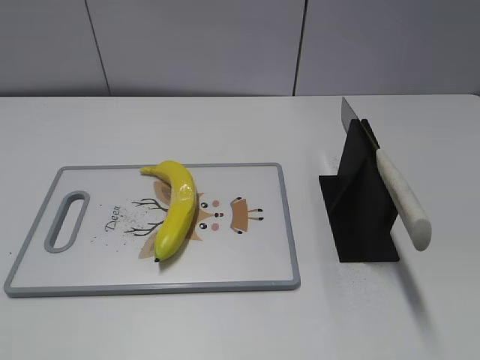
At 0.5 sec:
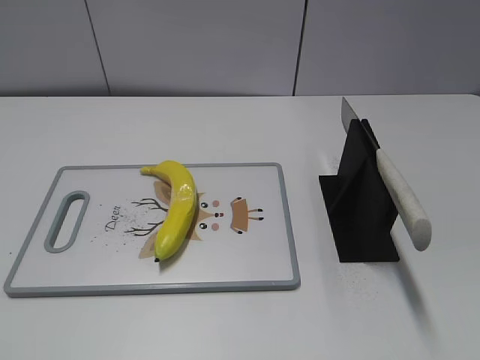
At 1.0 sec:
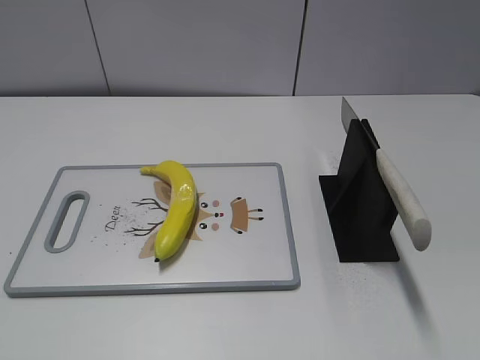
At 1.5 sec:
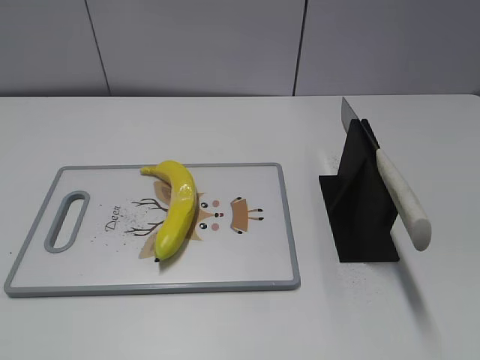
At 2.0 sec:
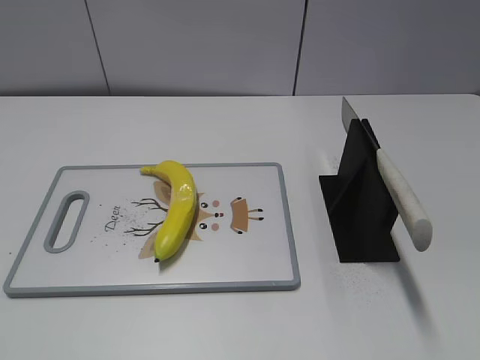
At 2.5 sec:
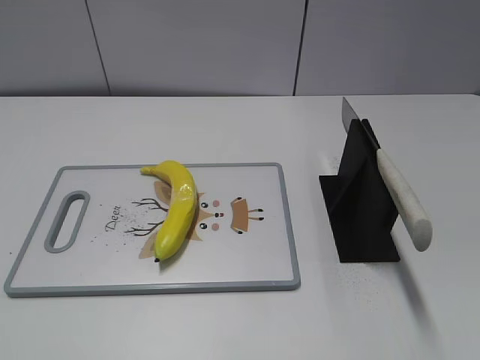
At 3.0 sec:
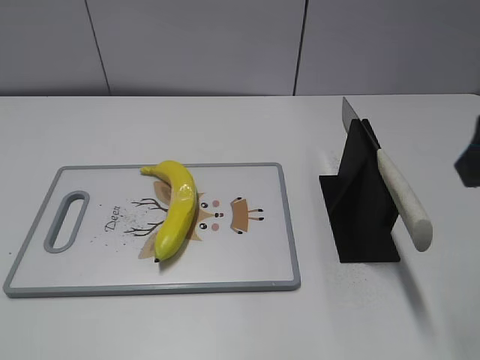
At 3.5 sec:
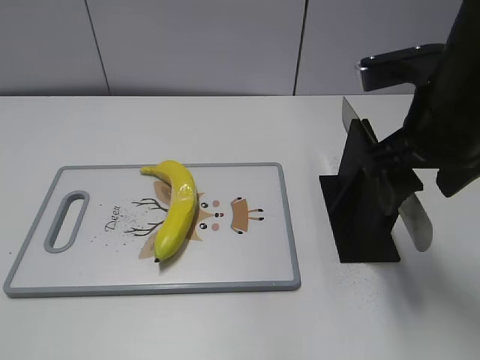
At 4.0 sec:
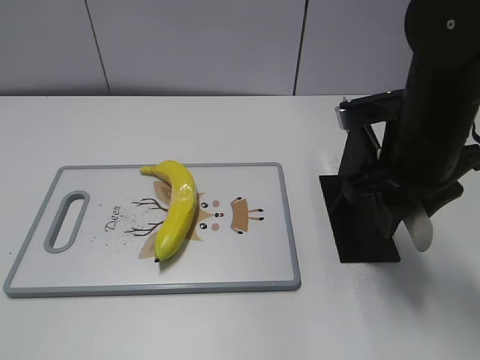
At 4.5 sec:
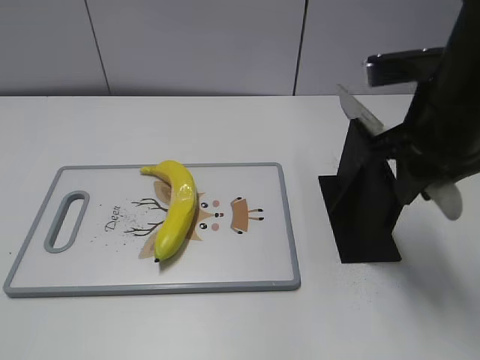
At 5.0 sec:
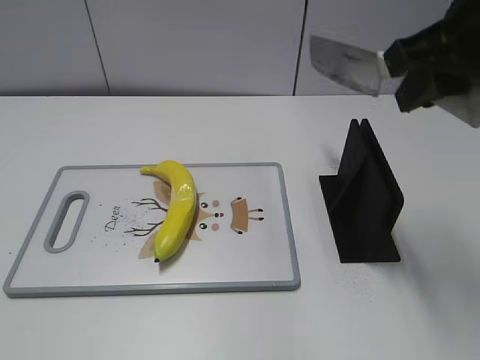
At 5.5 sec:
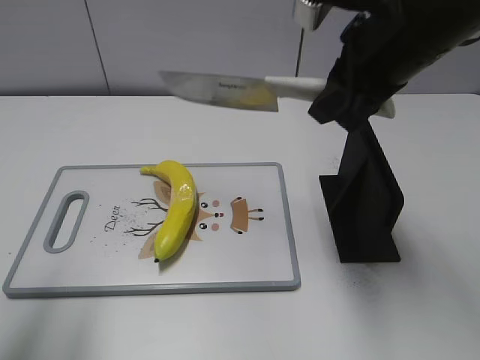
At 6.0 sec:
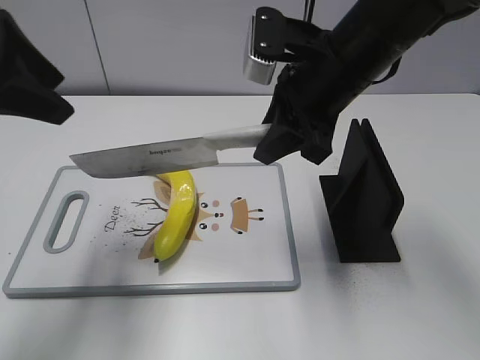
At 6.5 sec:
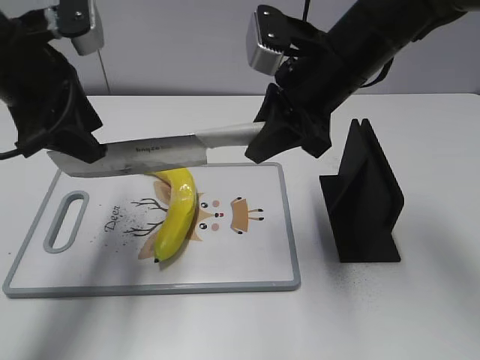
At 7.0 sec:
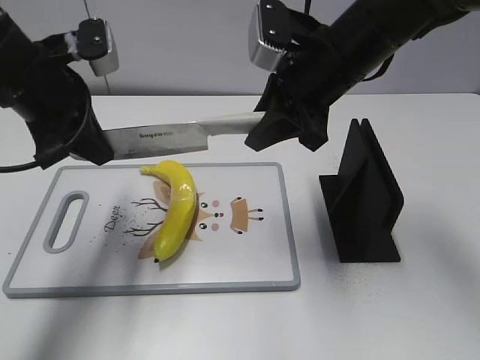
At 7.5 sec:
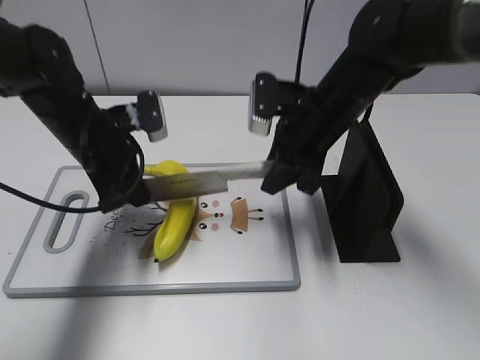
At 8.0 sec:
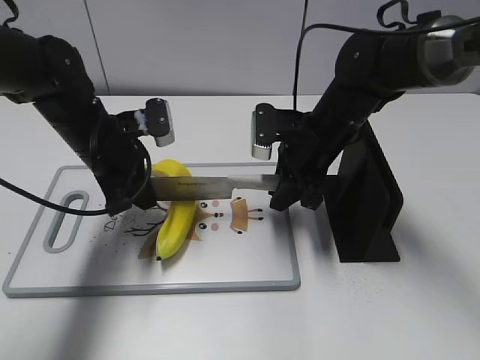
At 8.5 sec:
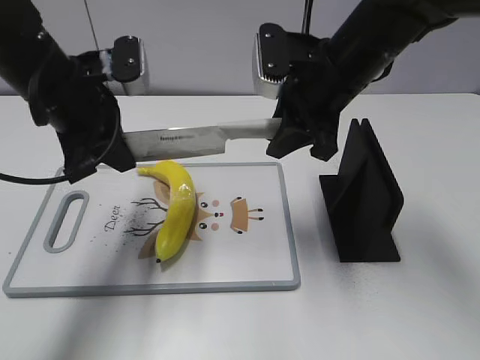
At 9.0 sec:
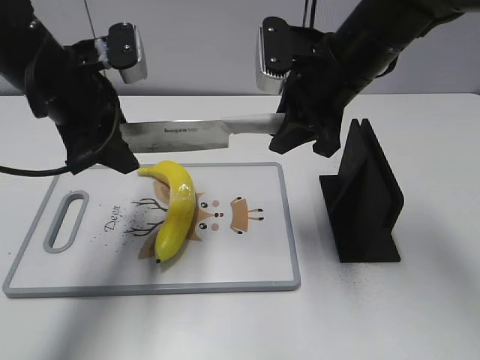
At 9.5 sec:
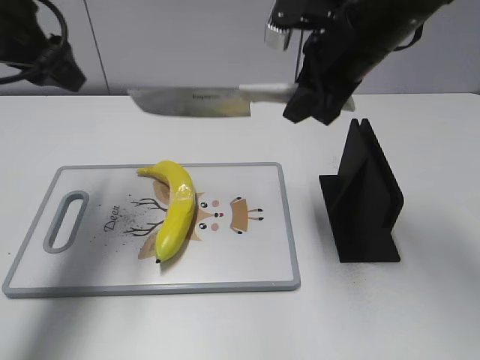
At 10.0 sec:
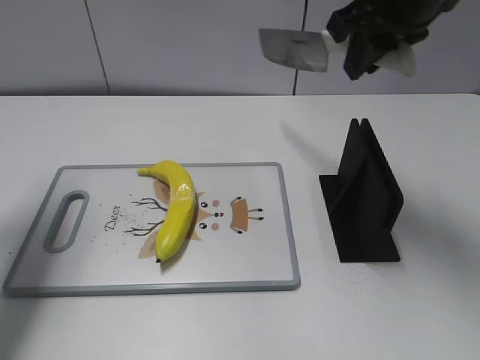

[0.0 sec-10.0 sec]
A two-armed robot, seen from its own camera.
Task of the whole recording: cut plastic banana.
Step, 0.0 sec to 5.0 sec: Grab the knife handle with your right hand.
Step, 5.5 sec to 8.5 sec: Lift the knife with your right hand.
2.0 sec to 4.0 sec: The right gripper goes approximately 30 cm forward and to the left, and closes up.
4.0 sec to 6.0 sec: The left gripper moves forward, some 30 cm. The right gripper heads to the left, covering roughly 5 cm, and goes upward and returns, approximately 15 cm each way.
6.0 sec to 8.0 sec: The left gripper shifts about 20 cm downward and forward, and closes its fingers; the right gripper goes approximately 10 cm downward.
8.0 sec to 10.0 sec: The right gripper goes approximately 20 cm upward. Meanwhile the left gripper heads upward and to the left, covering roughly 20 cm, and opens.

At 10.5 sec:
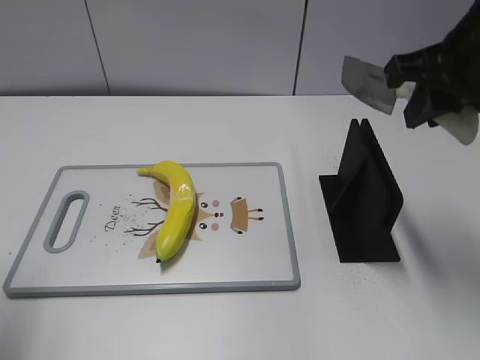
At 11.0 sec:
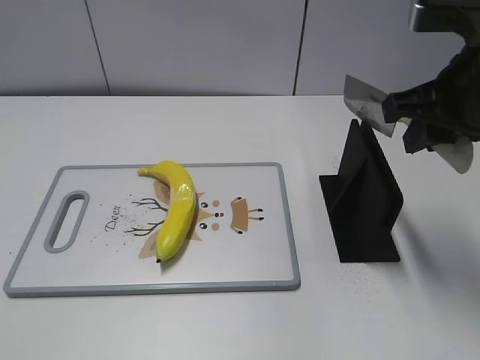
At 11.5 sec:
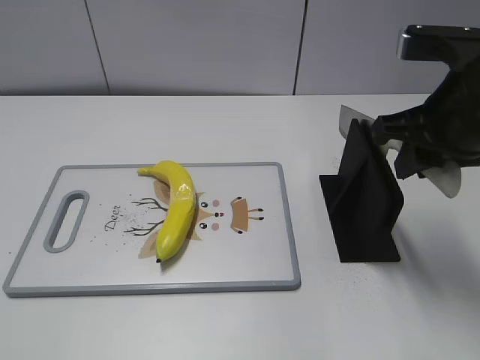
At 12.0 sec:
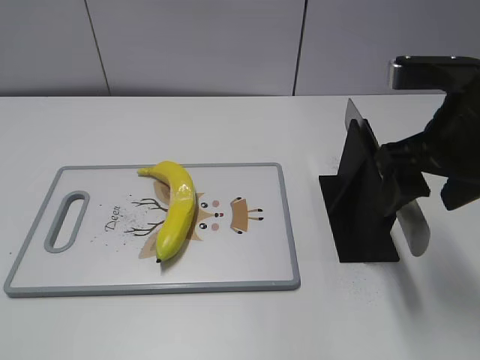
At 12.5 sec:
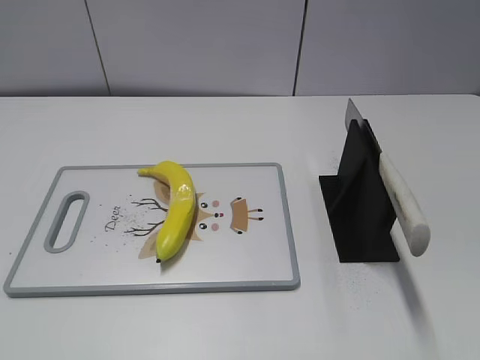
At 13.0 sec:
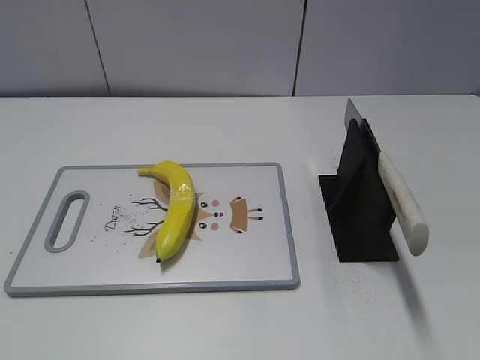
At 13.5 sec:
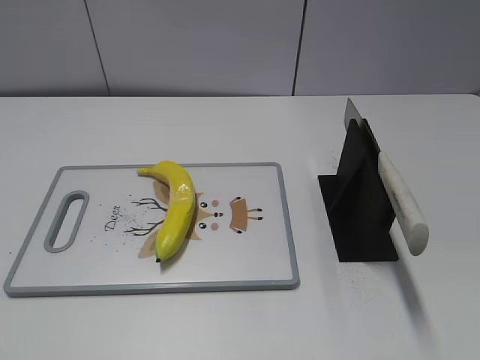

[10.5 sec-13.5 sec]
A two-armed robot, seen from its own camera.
Task of the whole recording: cut plastic banana.
Step, 11.0 sec to 13.5 sec: Place the knife on the storage rack with your right hand.
10.5 sec to 12.0 sec: The right gripper is displaced downward by approximately 5 cm, and opens its fingers, while the left gripper heads backward, covering about 20 cm.
12.0 sec to 13.5 sec: The right gripper shifts approximately 25 cm backward.

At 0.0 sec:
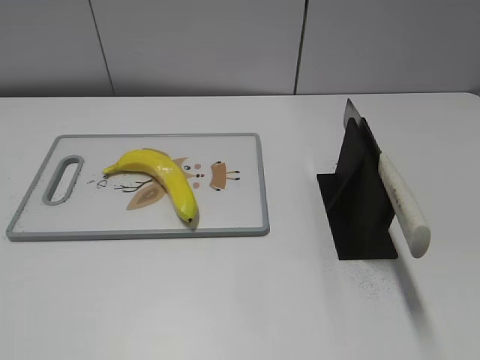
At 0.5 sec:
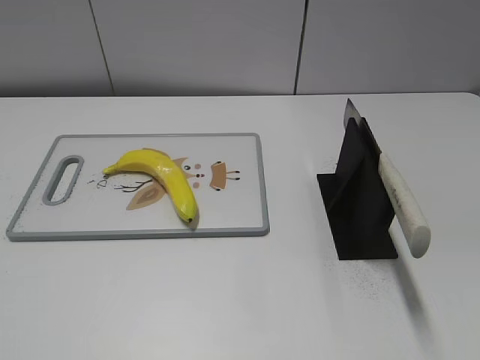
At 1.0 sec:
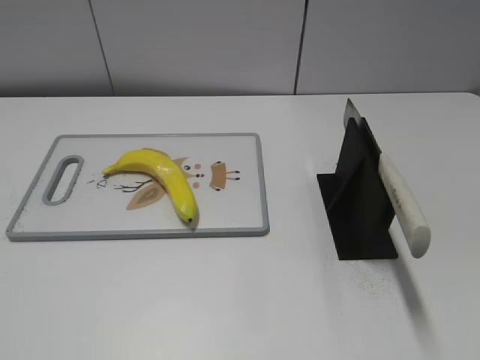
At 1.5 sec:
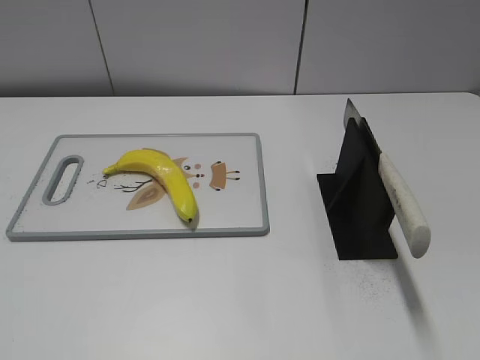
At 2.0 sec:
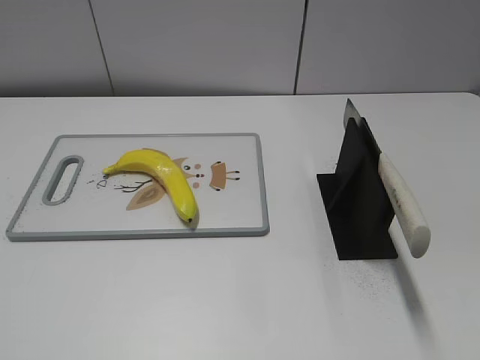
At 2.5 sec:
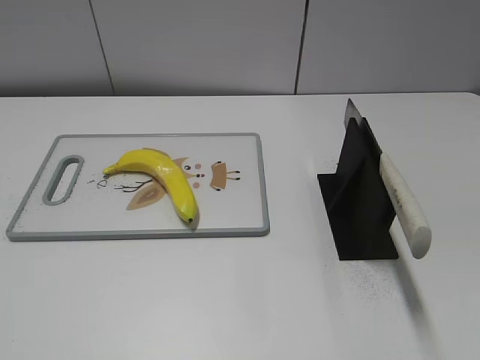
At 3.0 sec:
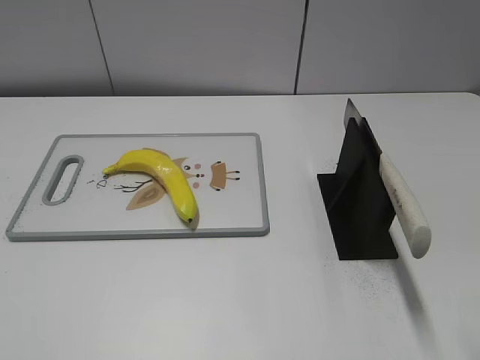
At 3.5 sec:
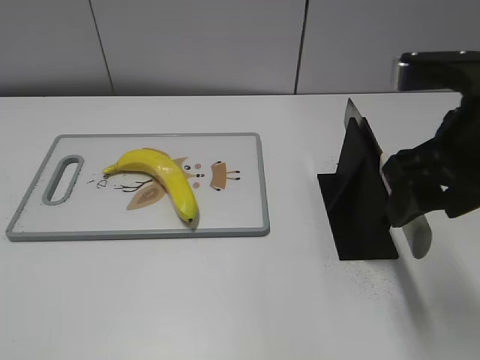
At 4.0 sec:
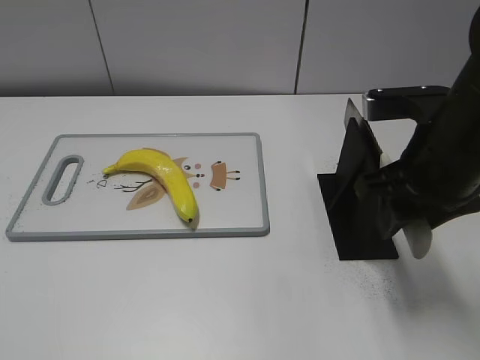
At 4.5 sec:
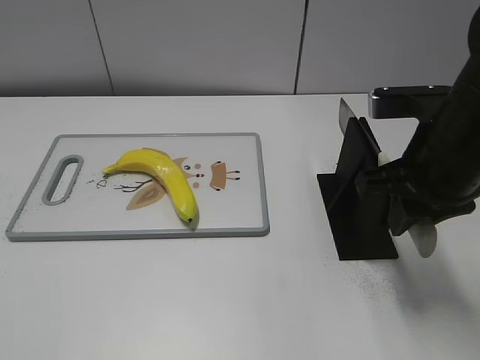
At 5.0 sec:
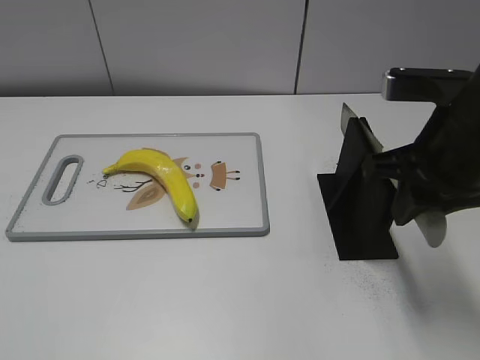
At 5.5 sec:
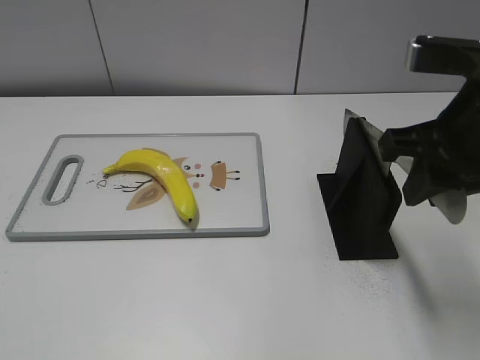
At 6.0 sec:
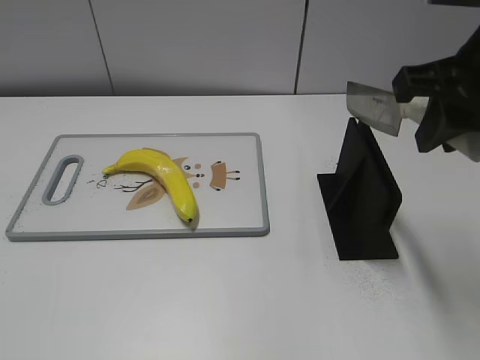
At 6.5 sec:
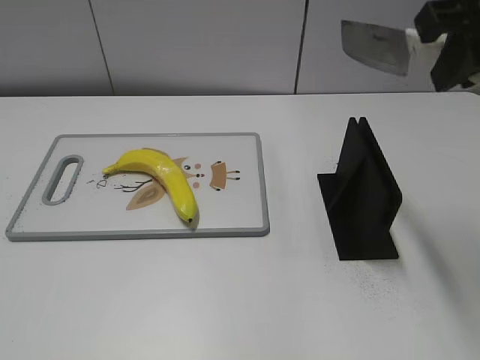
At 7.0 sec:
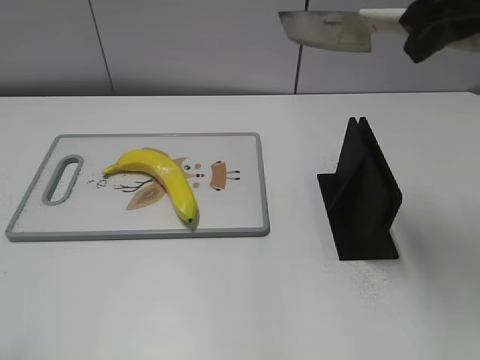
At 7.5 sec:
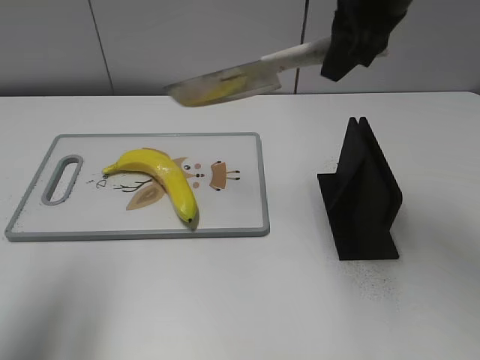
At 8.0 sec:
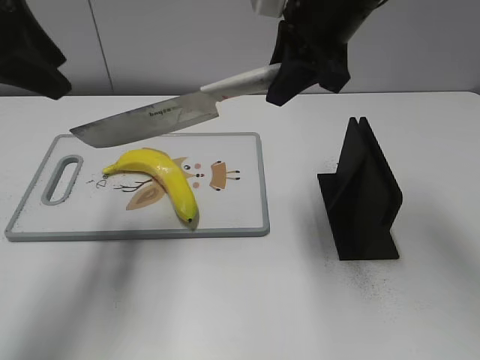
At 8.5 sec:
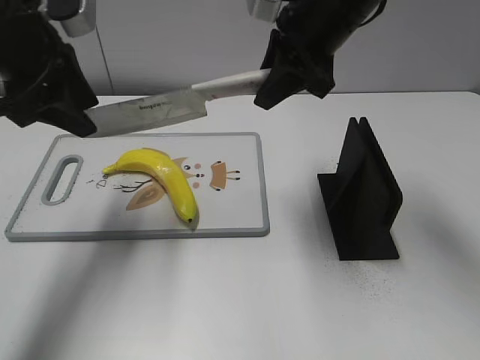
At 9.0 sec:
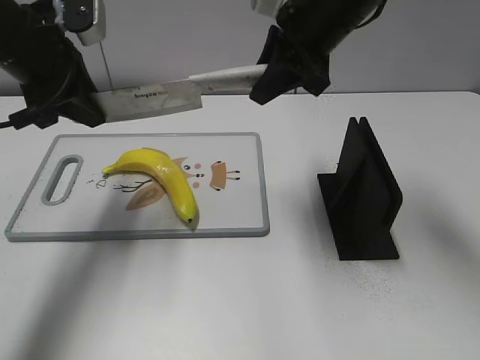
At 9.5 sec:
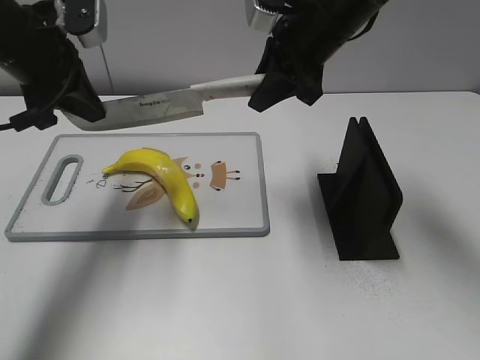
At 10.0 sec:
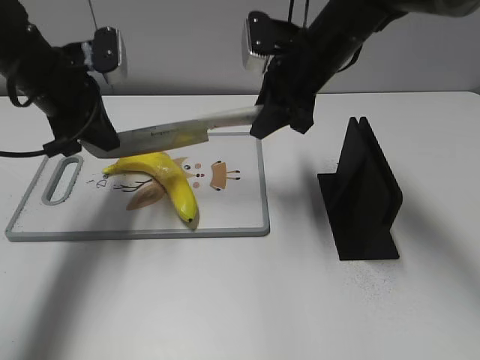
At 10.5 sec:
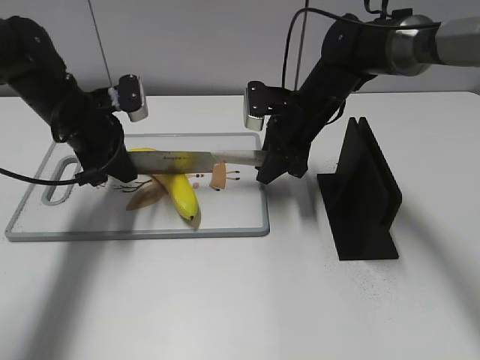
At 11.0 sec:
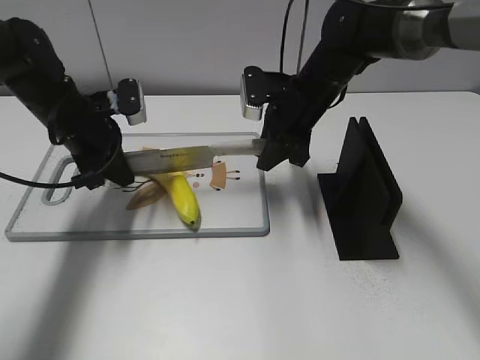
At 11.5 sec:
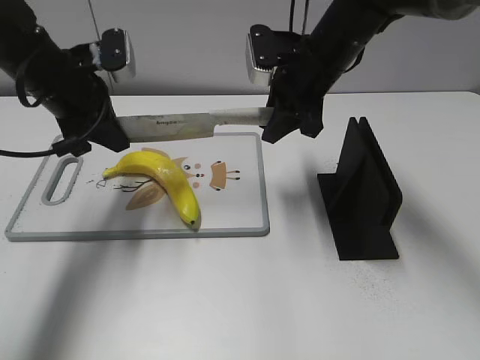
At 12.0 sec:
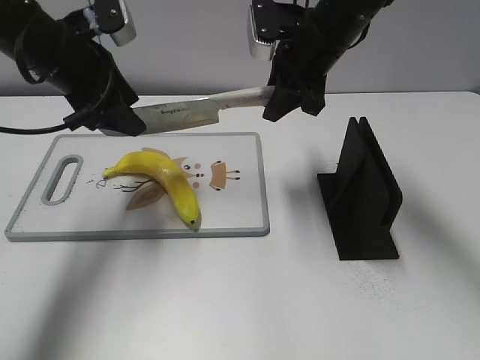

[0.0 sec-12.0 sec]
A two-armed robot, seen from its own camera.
Task of the whole recording: cut plastic banana.
Step, 0.0 sec to 5.5 sec: Grab the knife handle with your right hand.
Step, 6.0 sec to 11.5 sec: Lift the knife with your right hand.
2.0 sec to 4.0 sec: The right gripper shifts roughly 25 cm forward and to the left, and closes up.
4.0 sec to 6.0 sec: The right gripper travels upward by about 10 cm, and closes.
6.0 sec to 8.0 sec: The left gripper heads forward, covering some 30 cm; the right gripper heads forward and to the left, covering about 15 cm.
8.0 sec to 10.0 sec: The grippers both shift downward and forward by some 15 cm. The left gripper closes its fingers.
10.0 sec to 12.0 sec: The left gripper opens. The right gripper goes downward and returns, approximately 10 cm each way.
